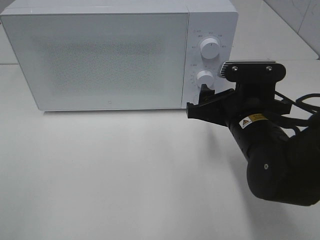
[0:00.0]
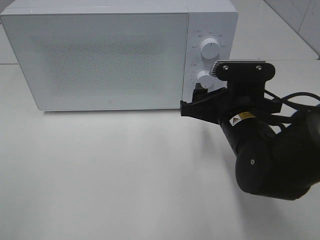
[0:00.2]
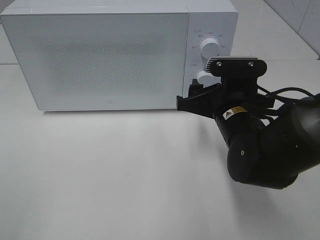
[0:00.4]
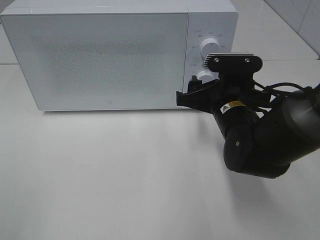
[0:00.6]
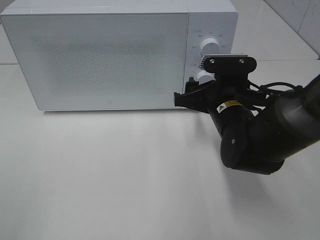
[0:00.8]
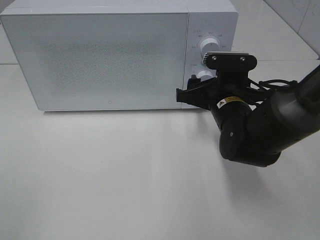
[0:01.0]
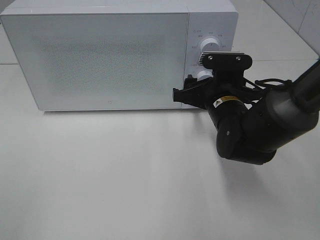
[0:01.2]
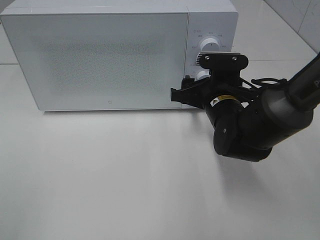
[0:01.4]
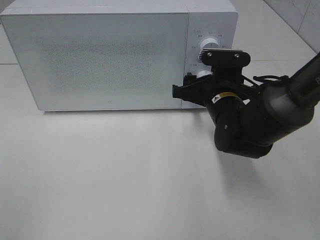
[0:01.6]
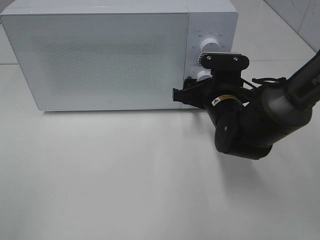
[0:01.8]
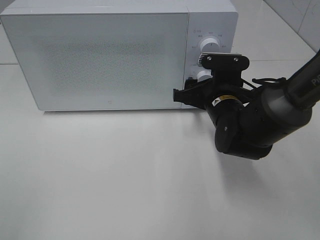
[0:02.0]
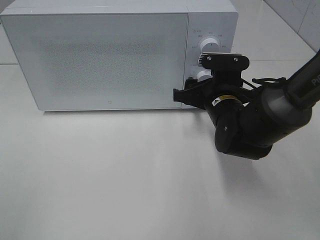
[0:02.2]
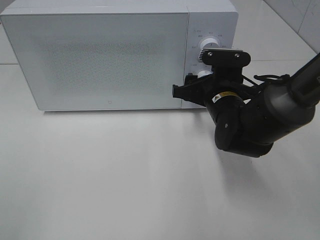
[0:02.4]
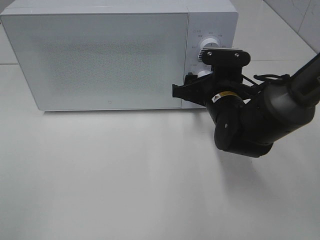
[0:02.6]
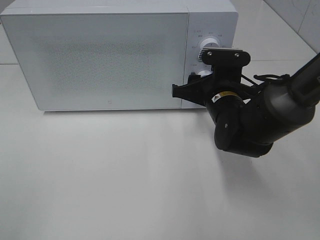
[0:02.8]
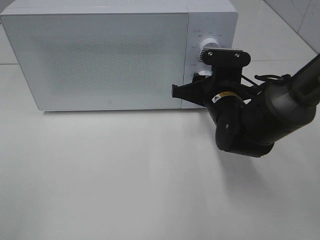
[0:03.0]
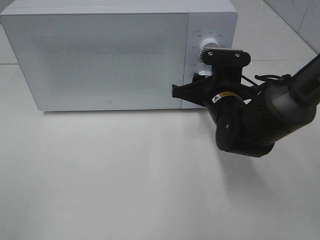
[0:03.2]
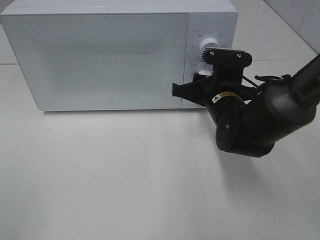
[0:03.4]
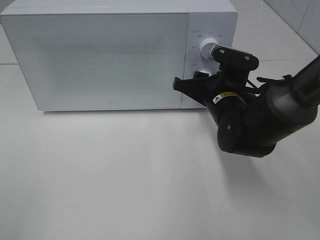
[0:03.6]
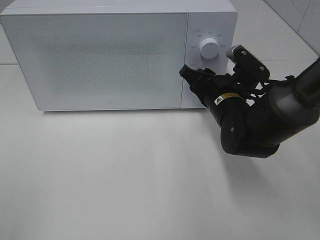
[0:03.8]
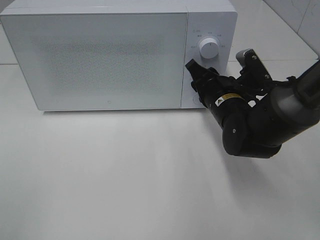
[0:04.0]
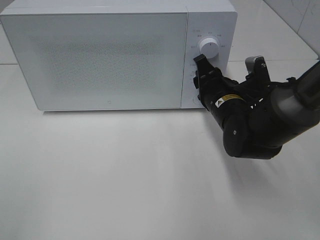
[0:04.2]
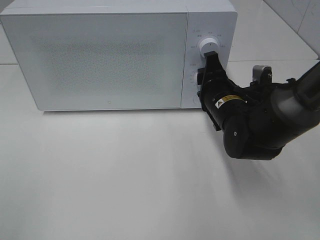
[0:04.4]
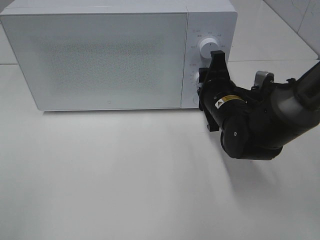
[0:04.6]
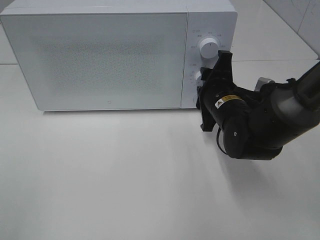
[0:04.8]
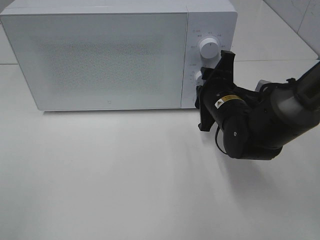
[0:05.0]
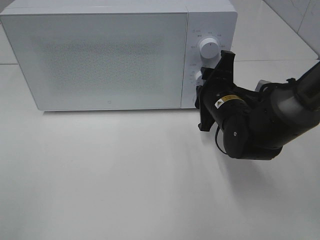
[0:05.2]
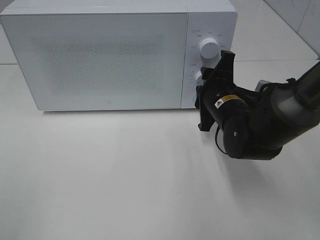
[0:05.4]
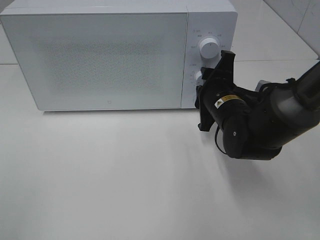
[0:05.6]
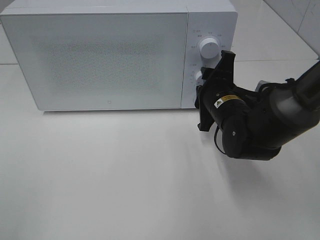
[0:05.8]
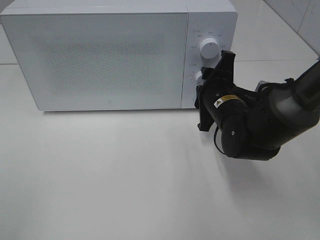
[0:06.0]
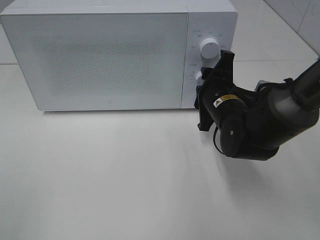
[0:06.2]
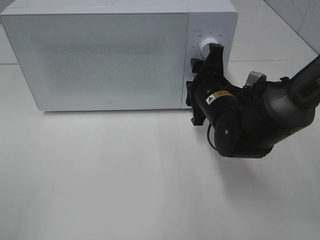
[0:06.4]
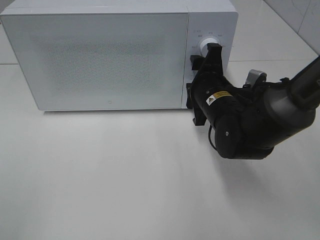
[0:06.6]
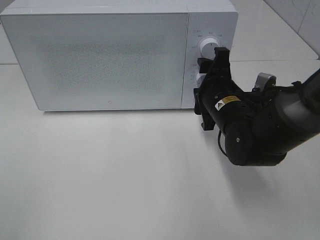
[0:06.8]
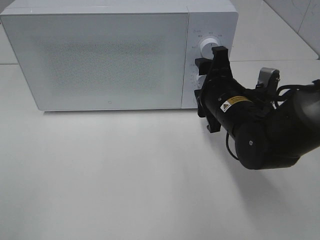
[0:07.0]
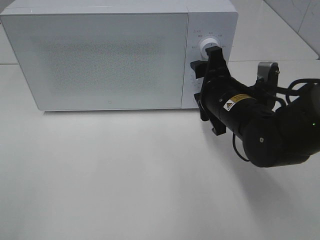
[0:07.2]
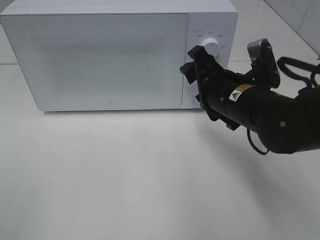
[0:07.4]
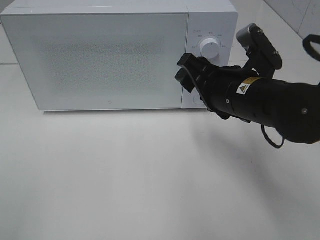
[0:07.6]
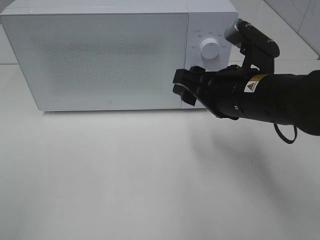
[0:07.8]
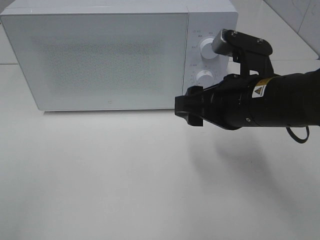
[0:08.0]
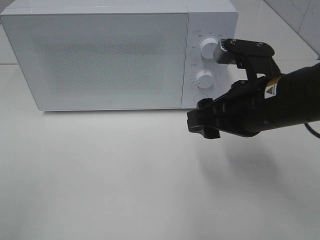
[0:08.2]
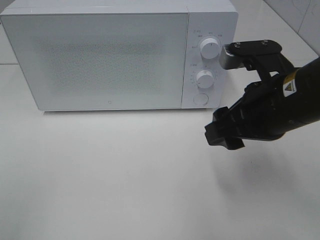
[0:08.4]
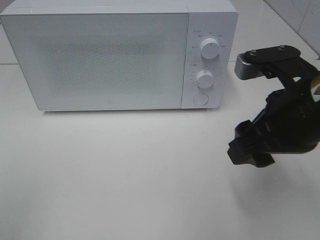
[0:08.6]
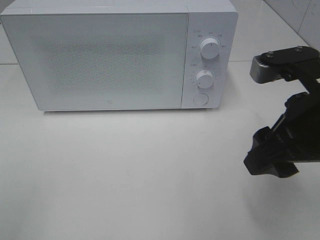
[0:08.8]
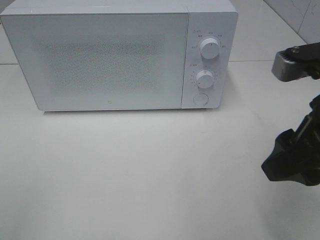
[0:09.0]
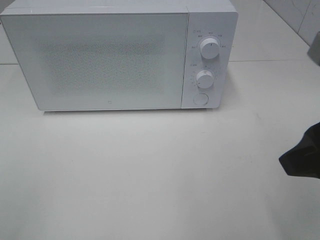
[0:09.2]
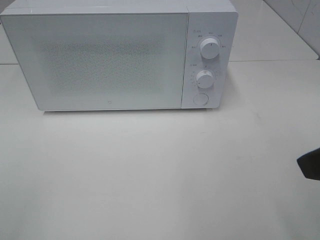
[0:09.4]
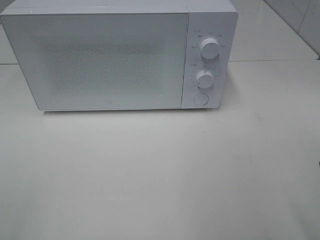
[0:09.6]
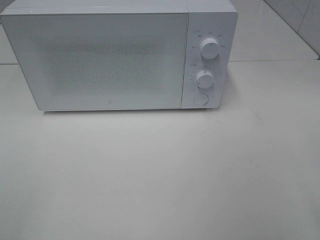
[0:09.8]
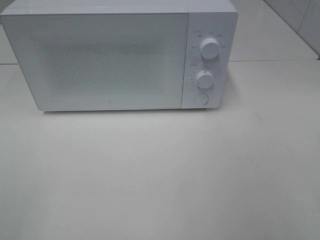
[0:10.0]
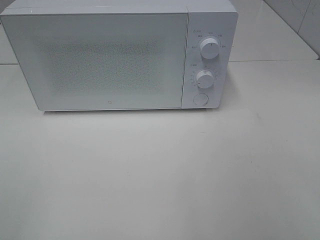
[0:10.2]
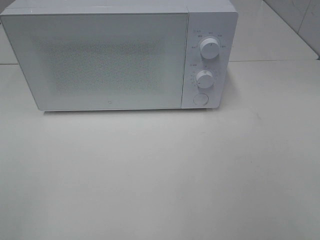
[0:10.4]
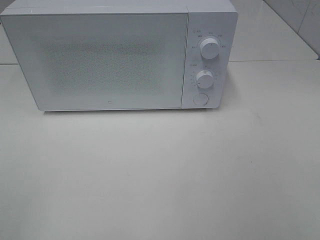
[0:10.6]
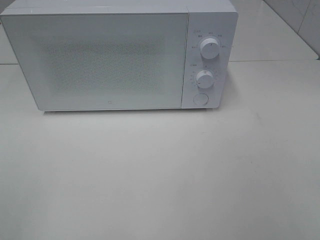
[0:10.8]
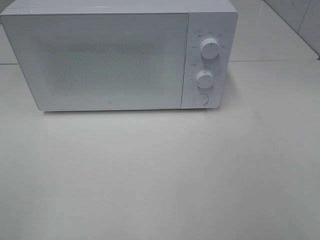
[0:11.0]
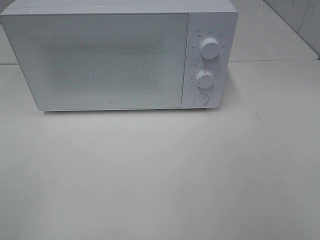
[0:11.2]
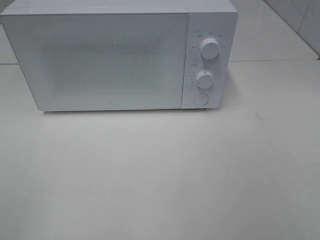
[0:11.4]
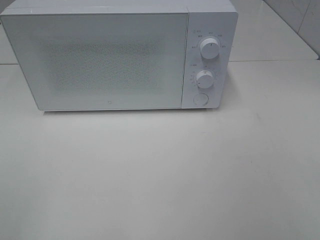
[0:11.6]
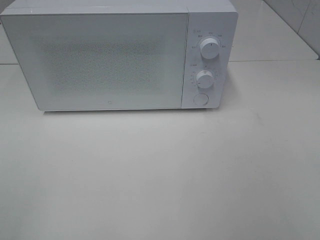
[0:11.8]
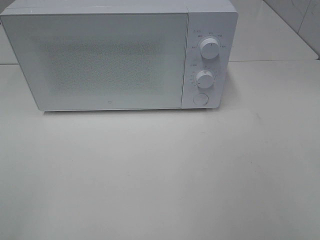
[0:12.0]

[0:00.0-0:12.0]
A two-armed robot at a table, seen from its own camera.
Task of the whole recording: Heat the burger.
Step, 0:00.0 to 0:06.8: Right hand: twist timer button.
0:00.0 to 0:01.6: The right gripper goes about 10 cm forward.
0:01.6 to 0:03.0: The right gripper closes its fingers.
0:06.0 to 0:07.6: The right gripper shifts about 10 cm upward and backward.
0:07.6 to 0:09.0: The right gripper goes some 15 cm backward, upward and to the right.
0:09.0 to 0:10.4: The right gripper travels backward and to the right by about 15 cm.

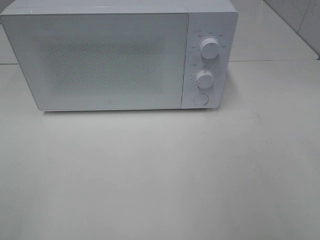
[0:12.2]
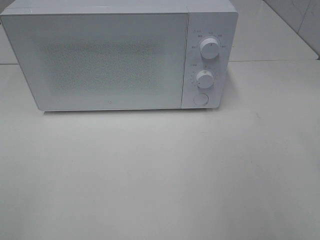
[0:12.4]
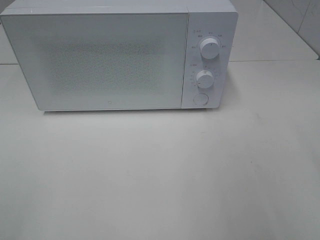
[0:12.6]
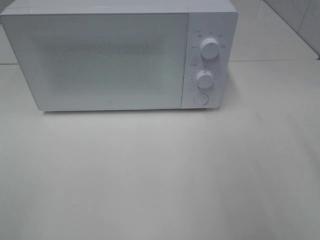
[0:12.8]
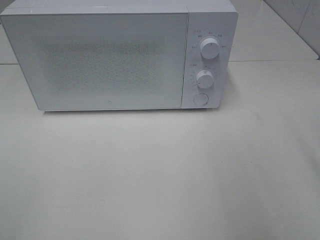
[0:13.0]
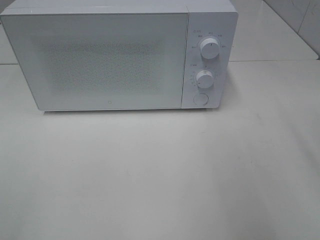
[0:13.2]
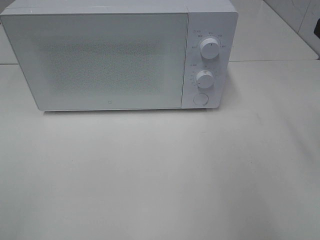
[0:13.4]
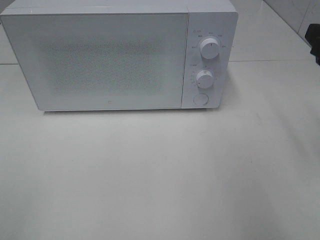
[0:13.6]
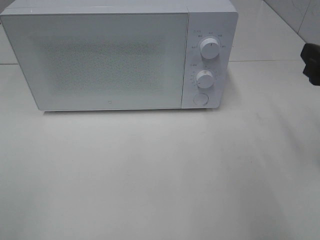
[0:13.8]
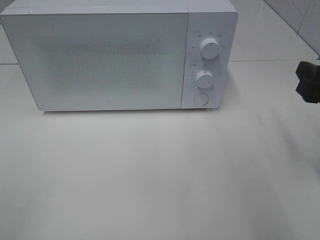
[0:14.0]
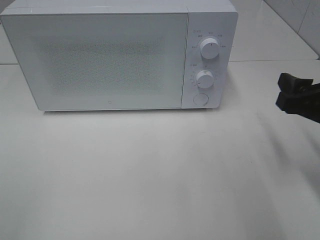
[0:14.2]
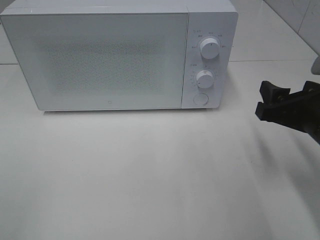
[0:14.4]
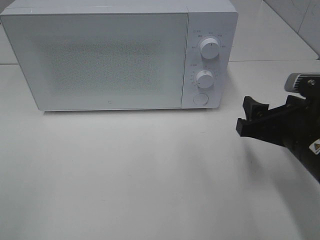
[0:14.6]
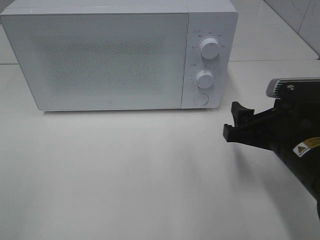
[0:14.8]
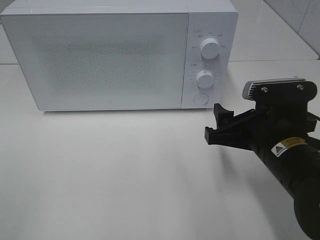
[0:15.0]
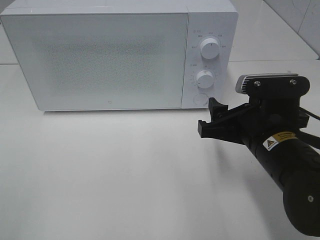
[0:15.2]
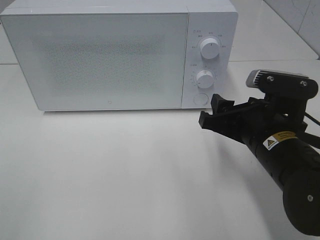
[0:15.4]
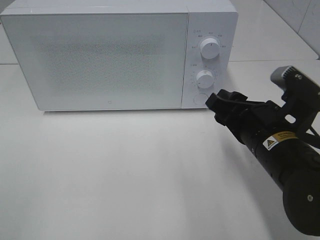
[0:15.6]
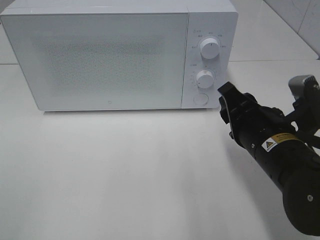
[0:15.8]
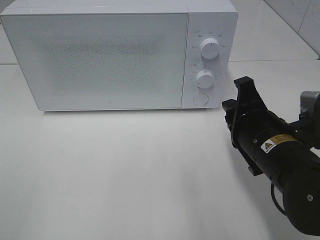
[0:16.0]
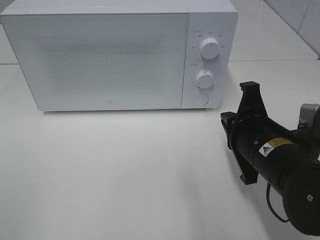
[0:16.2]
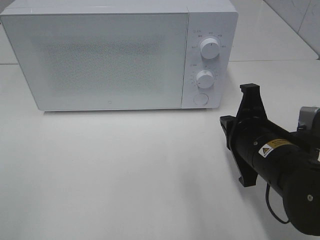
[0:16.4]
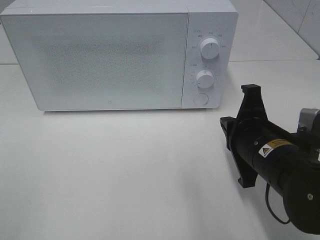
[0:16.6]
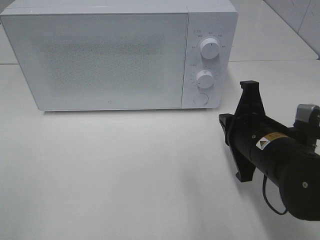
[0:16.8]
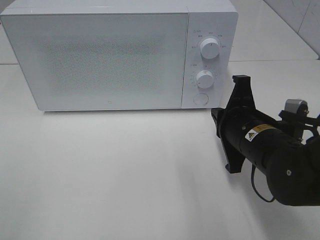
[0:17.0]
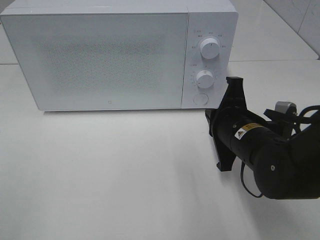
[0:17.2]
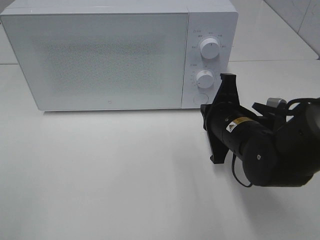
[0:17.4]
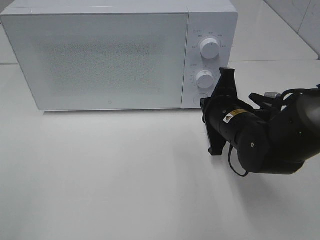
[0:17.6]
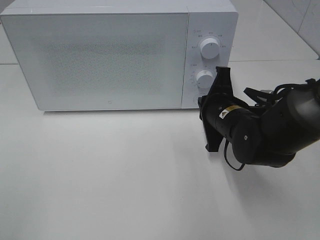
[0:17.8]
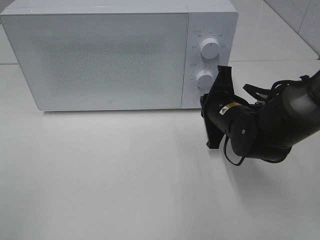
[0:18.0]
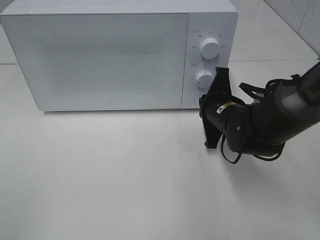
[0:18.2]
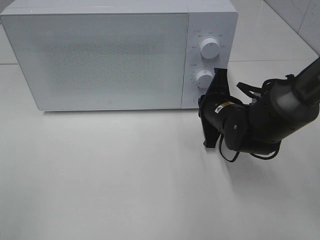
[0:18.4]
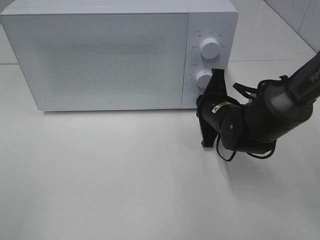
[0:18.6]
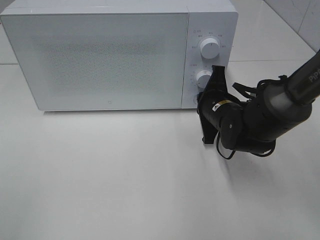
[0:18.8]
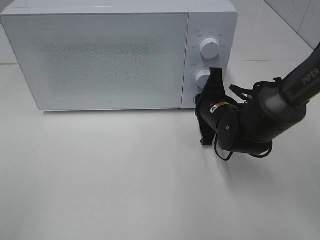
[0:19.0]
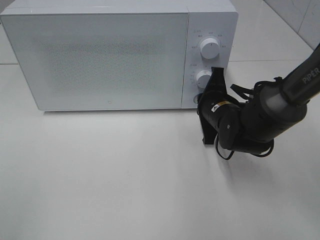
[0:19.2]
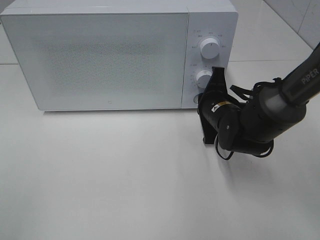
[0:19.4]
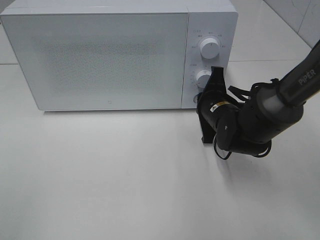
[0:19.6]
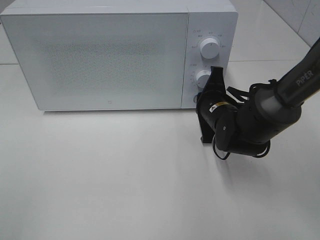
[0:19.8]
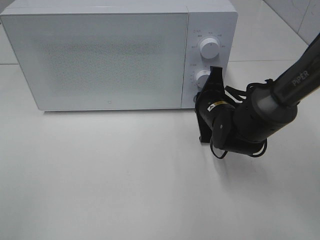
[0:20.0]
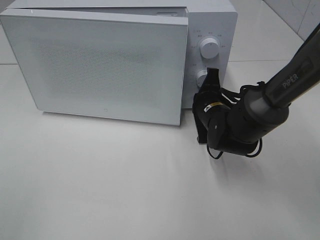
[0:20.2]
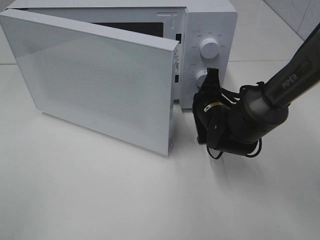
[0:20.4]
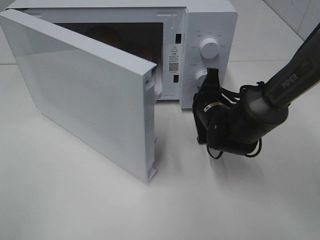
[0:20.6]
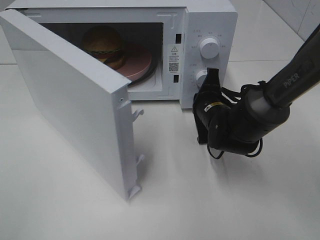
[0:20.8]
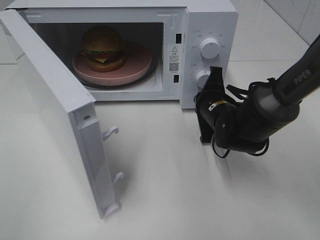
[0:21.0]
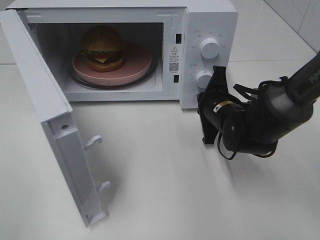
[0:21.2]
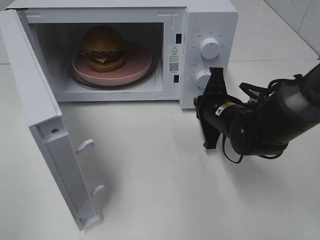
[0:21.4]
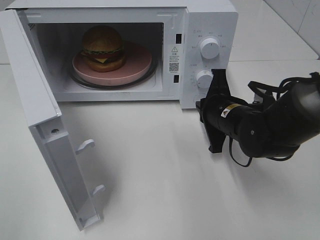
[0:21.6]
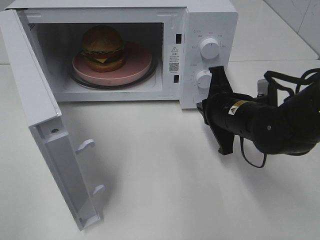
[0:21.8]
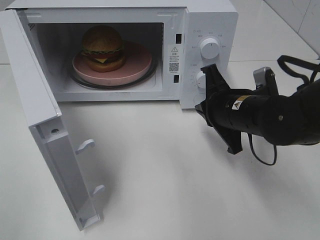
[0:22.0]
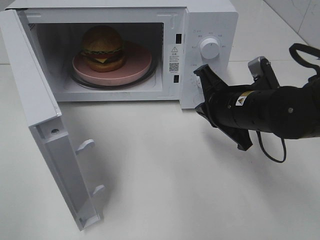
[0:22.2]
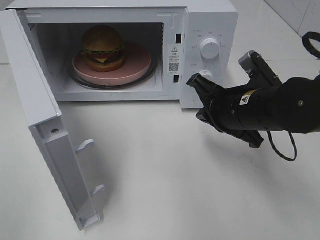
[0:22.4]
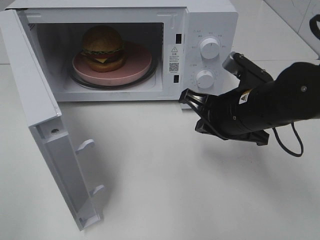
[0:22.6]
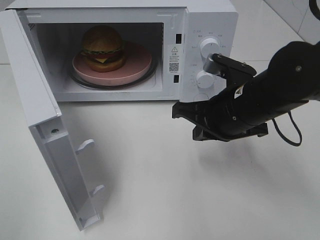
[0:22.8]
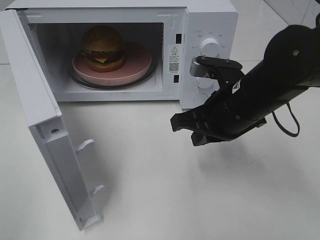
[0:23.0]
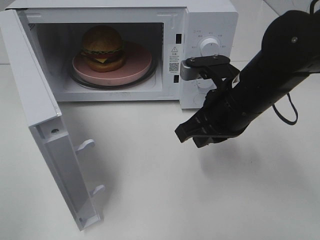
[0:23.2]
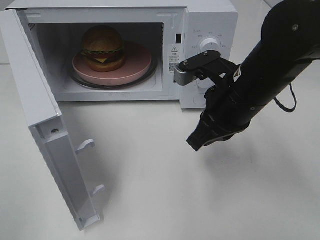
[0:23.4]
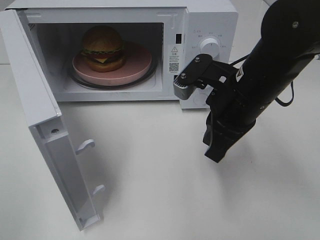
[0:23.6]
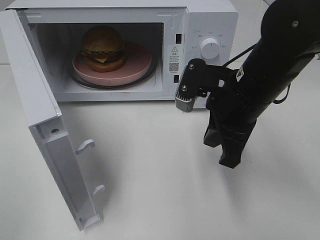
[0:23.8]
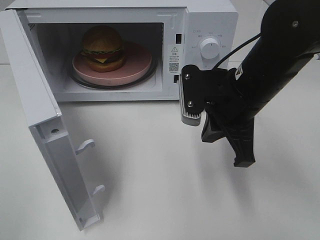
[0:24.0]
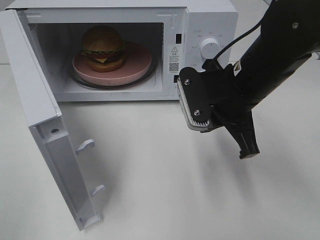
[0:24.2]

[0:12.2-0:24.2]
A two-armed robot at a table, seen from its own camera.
Task of the whole recording: Heat the burger.
Step, 0:12.2 to 0:21.4: Right hand: press the switch.
0:12.2 to 0:13.8: The right gripper is displaced forward and downward by roughly 15 cm.
0:13.8 to 0:15.2: The right gripper is displaced to the left and downward by roughly 15 cm.
0:15.2 to 0:16.6: The right gripper closes its fingers.
0:16.6 to 0:18.2: The right gripper moves forward, about 10 cm.
0:18.2 to 0:19.8: The grippers move only a little.
0:21.2 to 0:22.6: The right gripper is displaced upward and backward by some 10 cm.
